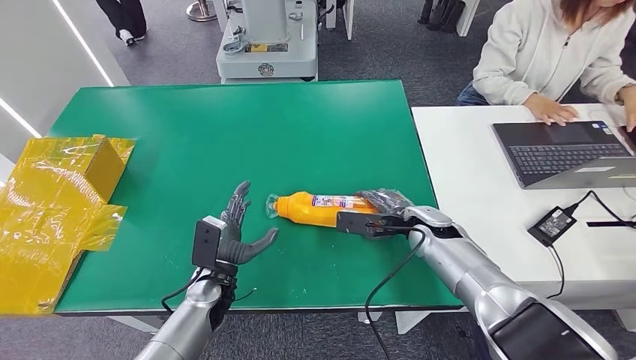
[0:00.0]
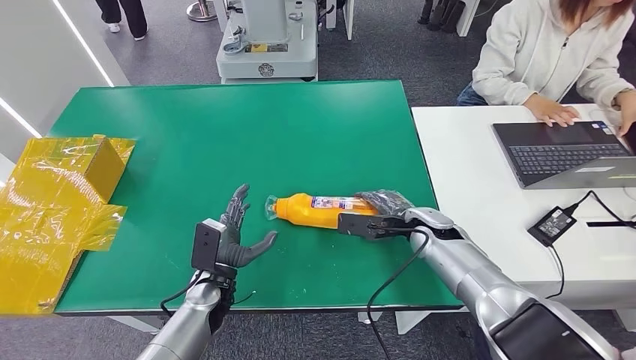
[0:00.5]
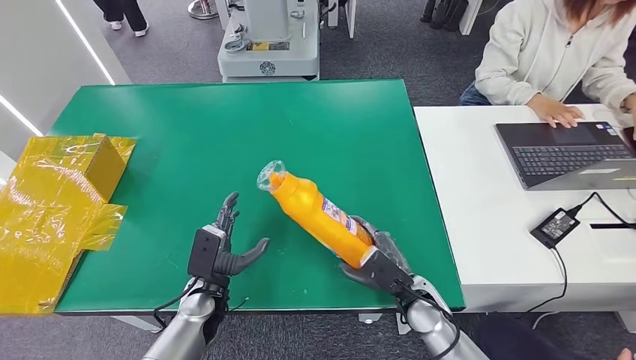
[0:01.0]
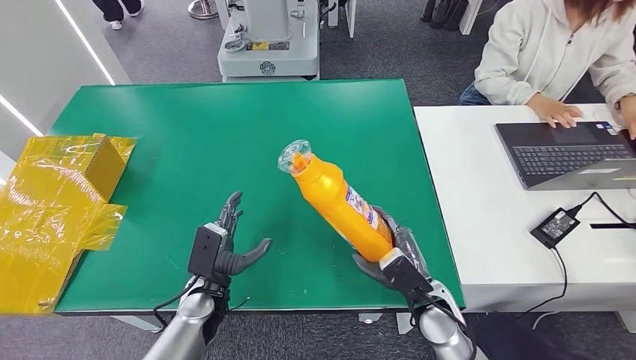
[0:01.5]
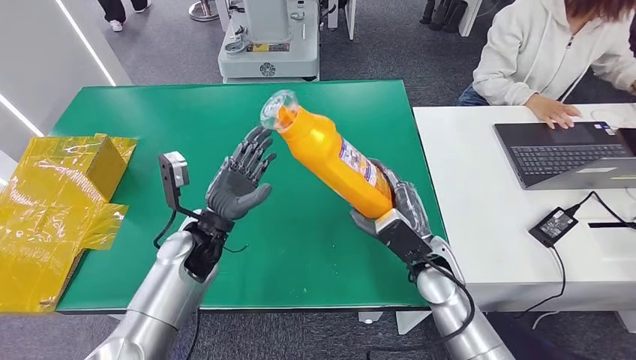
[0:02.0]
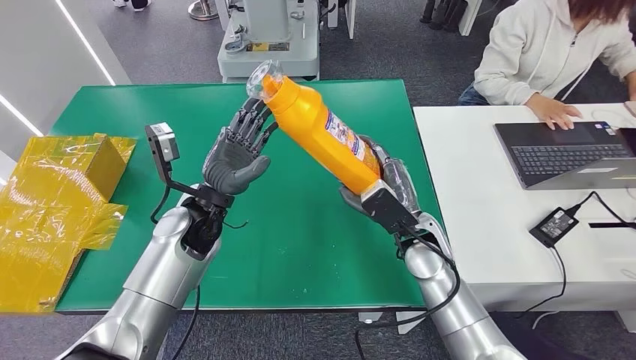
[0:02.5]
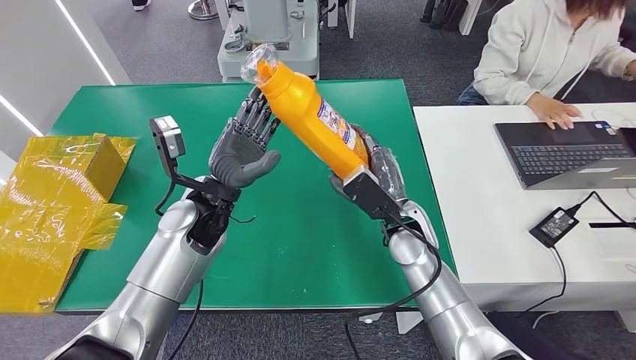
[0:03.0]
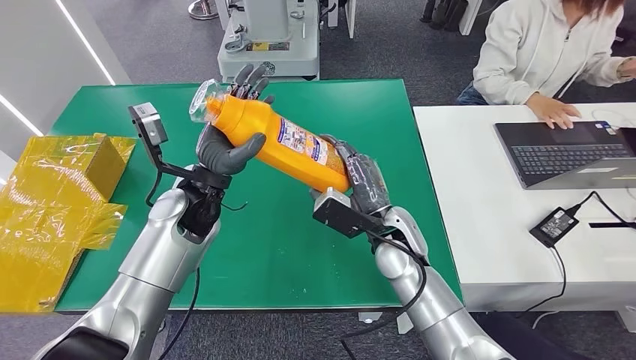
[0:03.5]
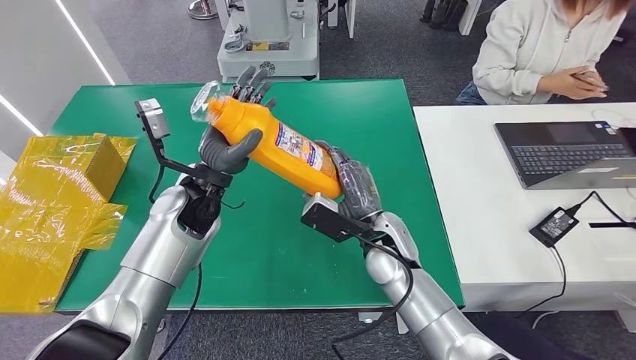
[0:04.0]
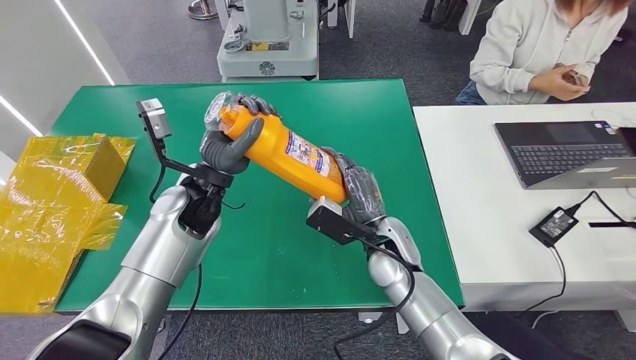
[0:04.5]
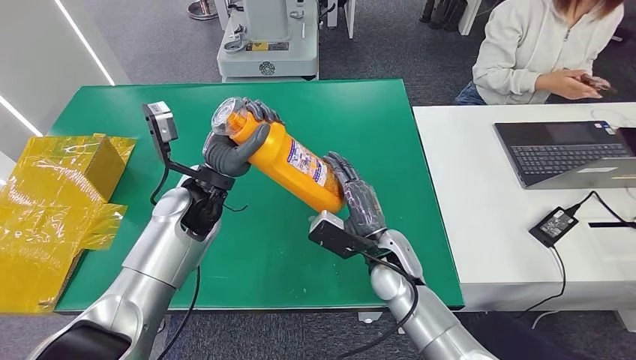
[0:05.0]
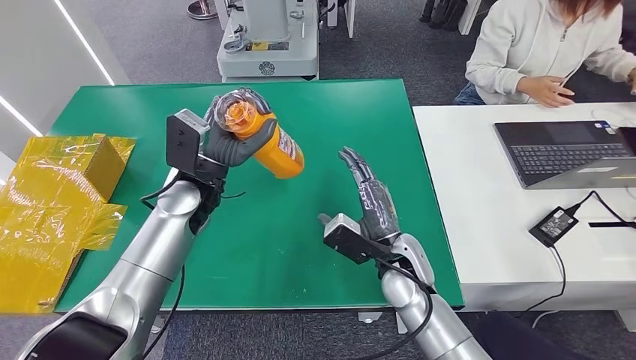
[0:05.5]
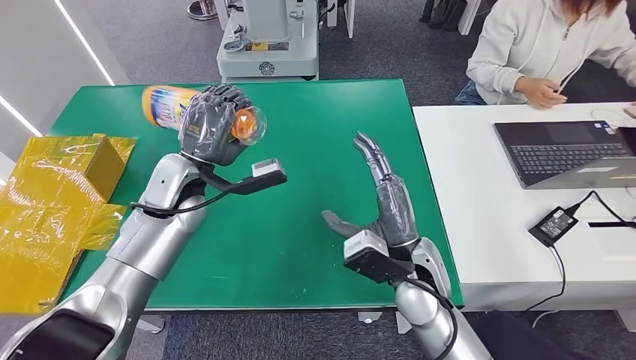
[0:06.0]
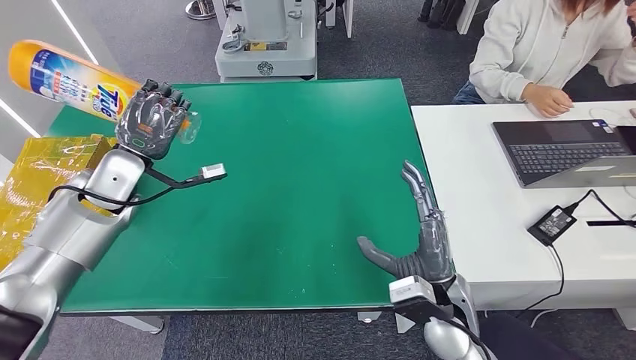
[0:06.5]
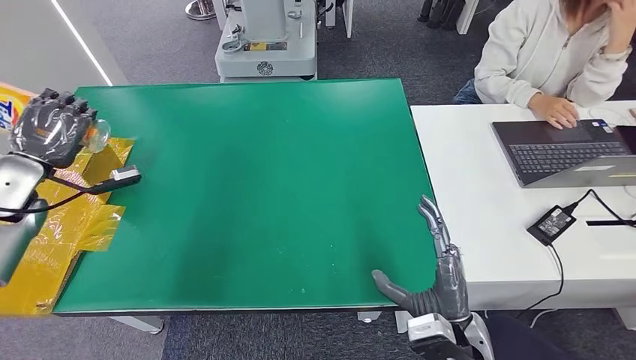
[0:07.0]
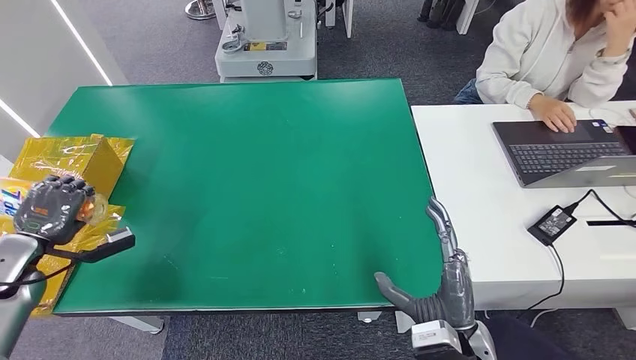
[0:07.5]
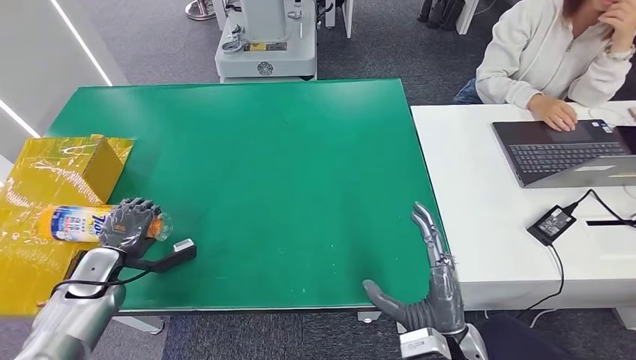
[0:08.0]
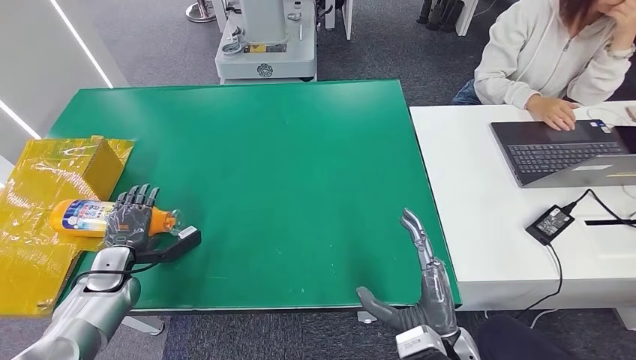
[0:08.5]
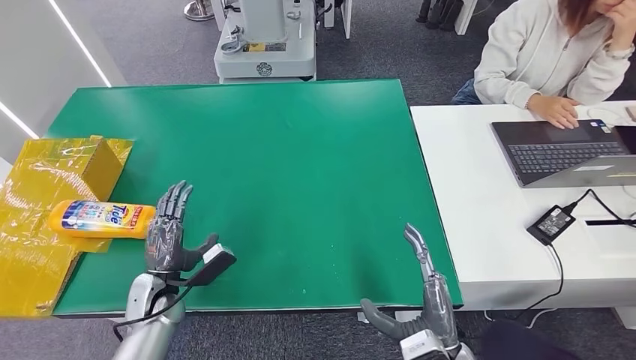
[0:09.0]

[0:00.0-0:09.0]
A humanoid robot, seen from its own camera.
Step, 0:02.5 to 0:09.0: Turn the bottle to the front side.
0:07.0 to 0:09.0: The left hand travels downward, to the right and backward by approximately 30 cm.

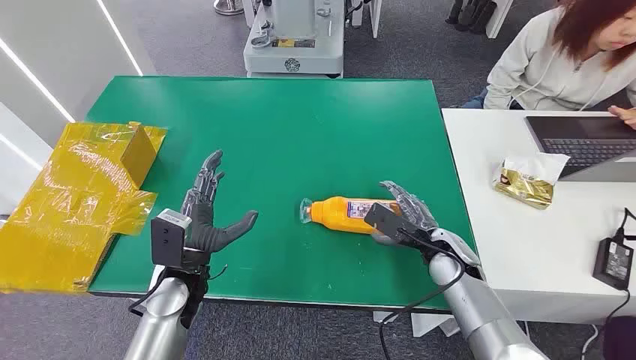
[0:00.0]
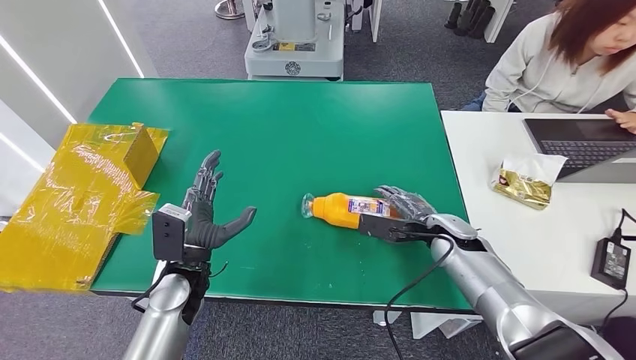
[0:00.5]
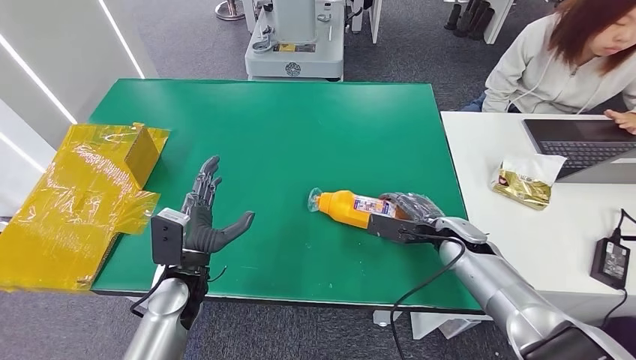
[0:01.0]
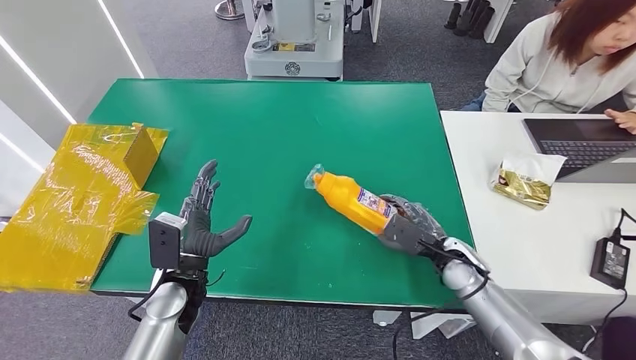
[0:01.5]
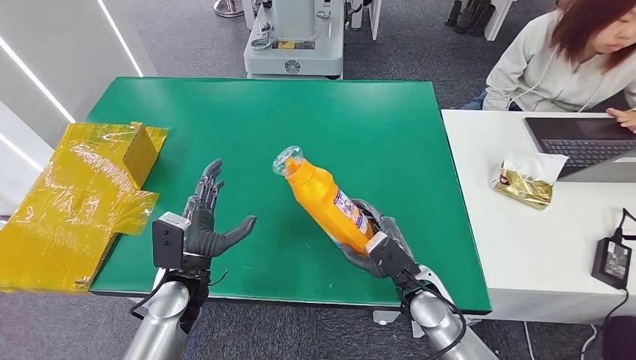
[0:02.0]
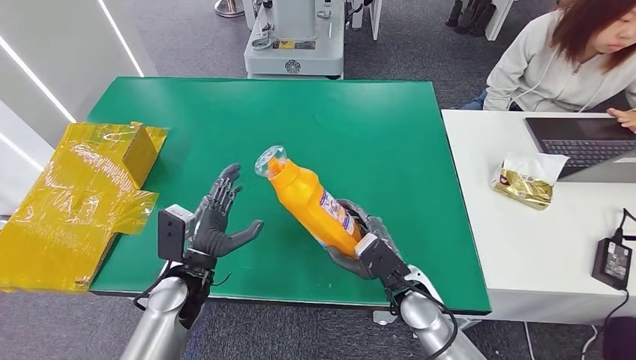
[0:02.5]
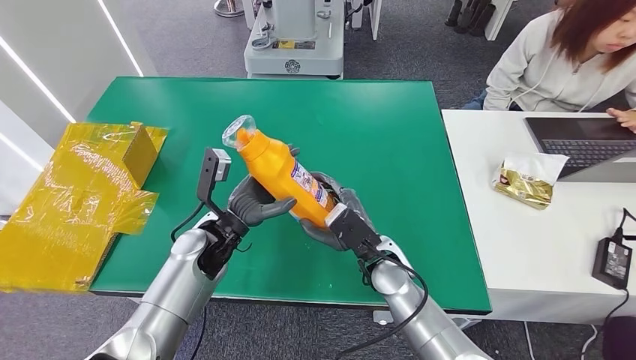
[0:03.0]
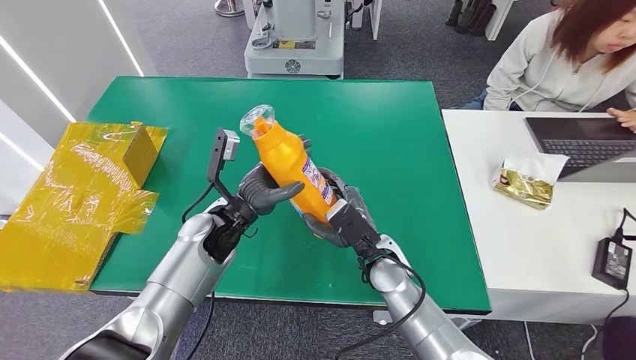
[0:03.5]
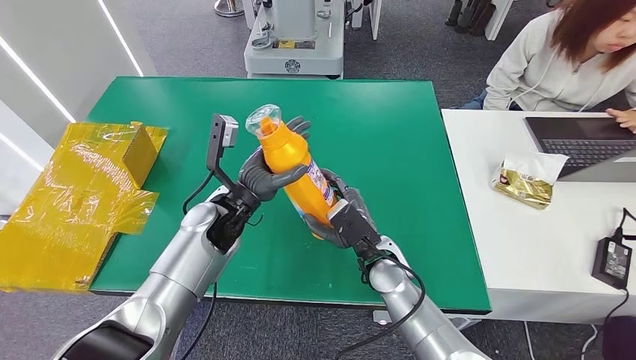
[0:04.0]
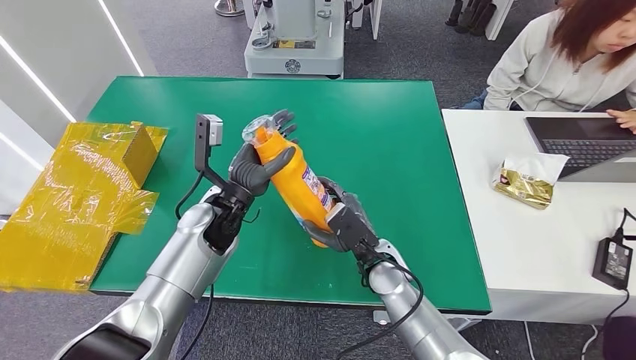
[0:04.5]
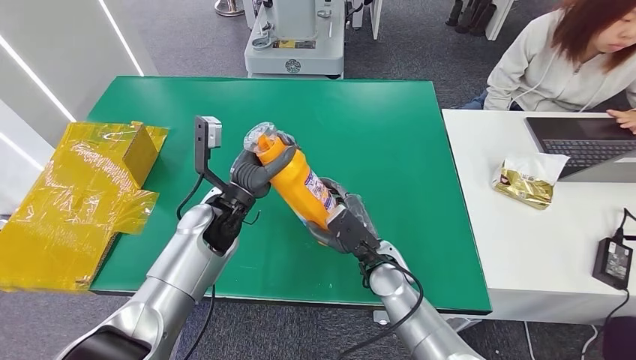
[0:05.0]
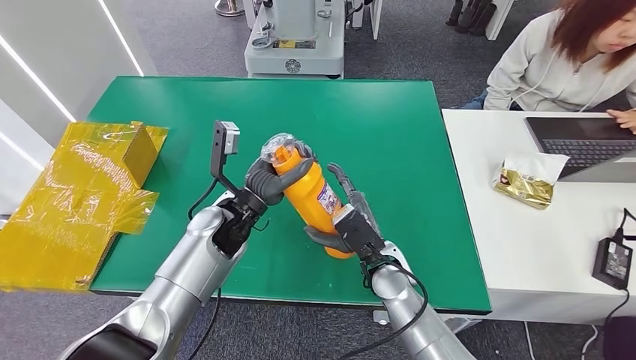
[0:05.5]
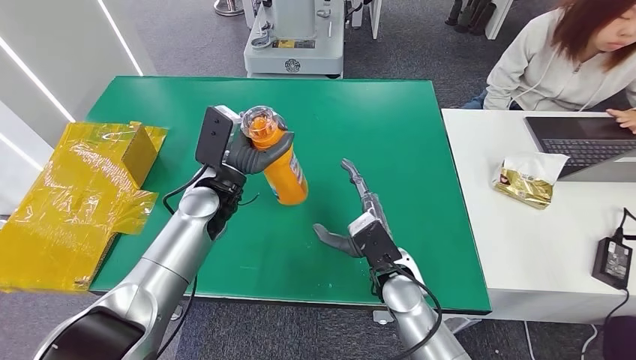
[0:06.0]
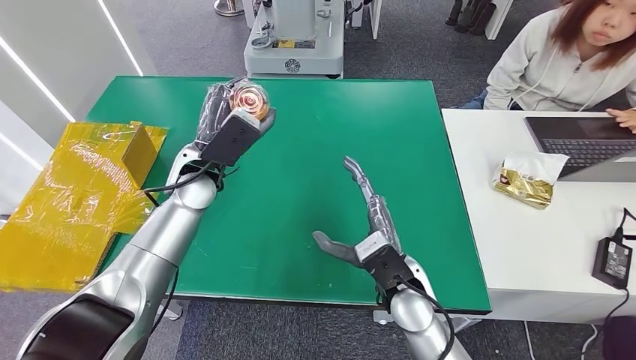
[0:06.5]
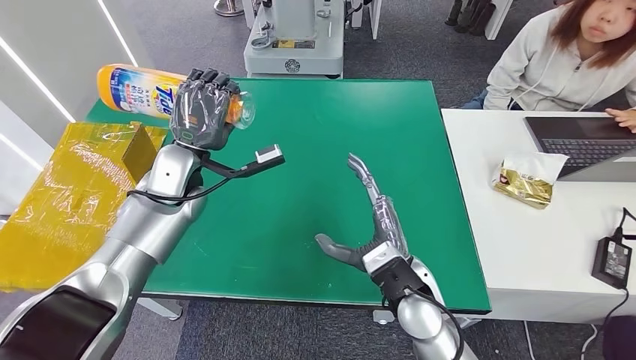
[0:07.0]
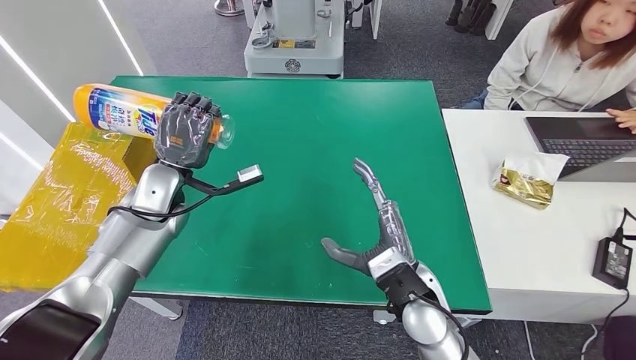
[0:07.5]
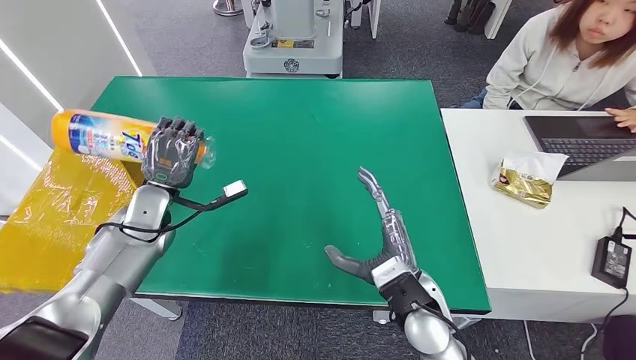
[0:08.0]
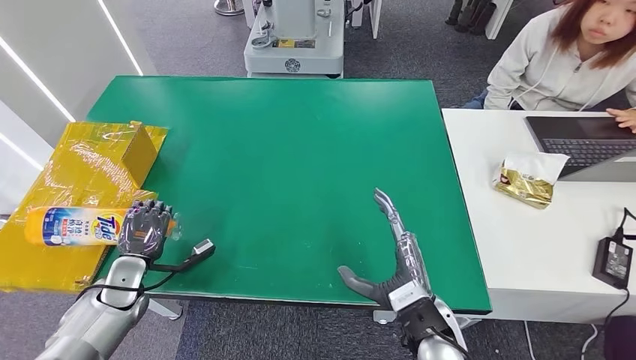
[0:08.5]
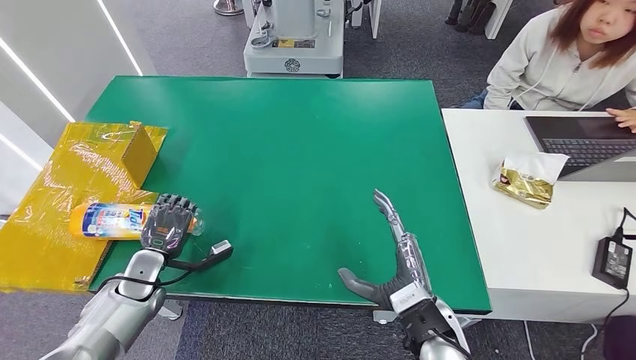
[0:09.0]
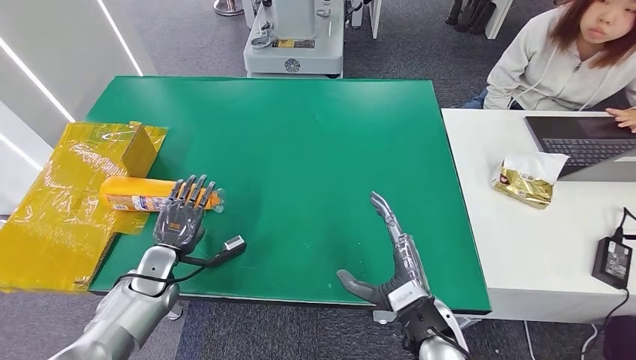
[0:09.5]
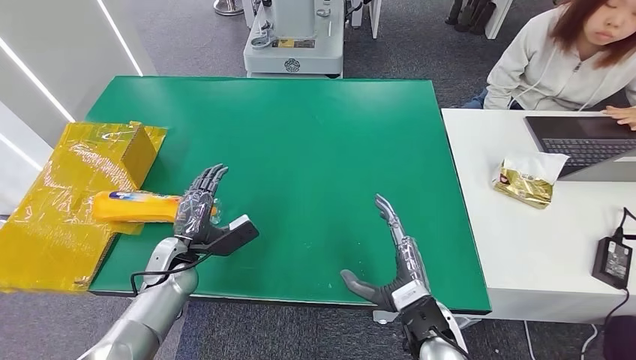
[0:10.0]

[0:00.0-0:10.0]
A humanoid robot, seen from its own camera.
Step, 0:00.0 to 0:02.5: Pick up the bottle from the table.
Step, 0:03.0 to 0:10.0: Turn the bottle to the front side.
0:02.0 to 0:04.0: The left hand is displaced forward, upward and to the right by some 15 cm. The right hand moves to the left, some 5 cm.
0:08.0 to 0:10.0: The right hand ends up some 5 cm from where it was. The left hand goes approximately 10 cm downward and backward.
